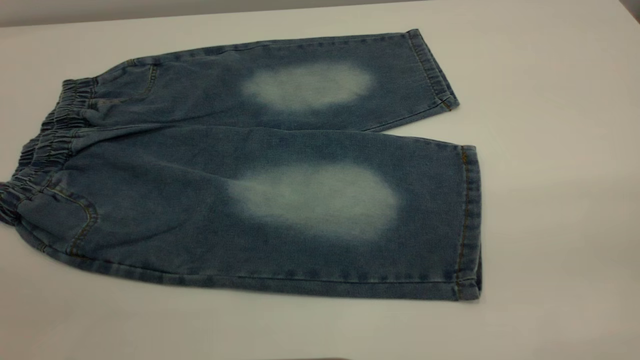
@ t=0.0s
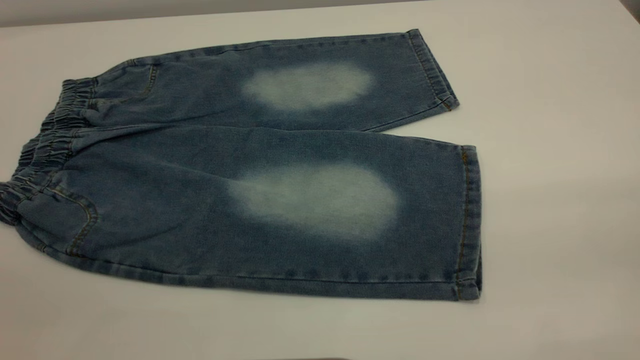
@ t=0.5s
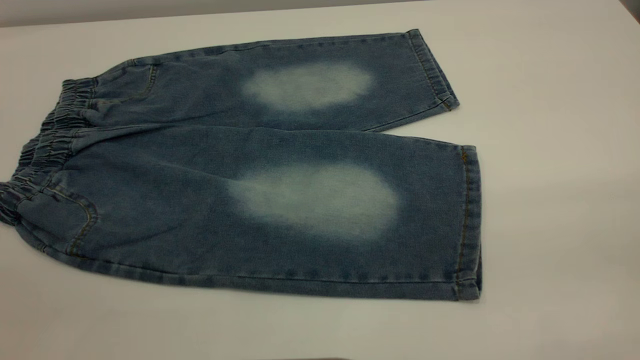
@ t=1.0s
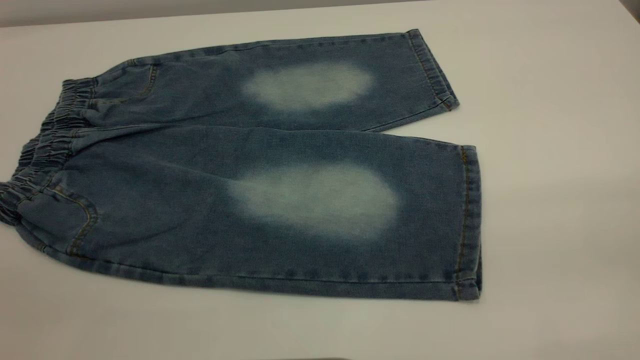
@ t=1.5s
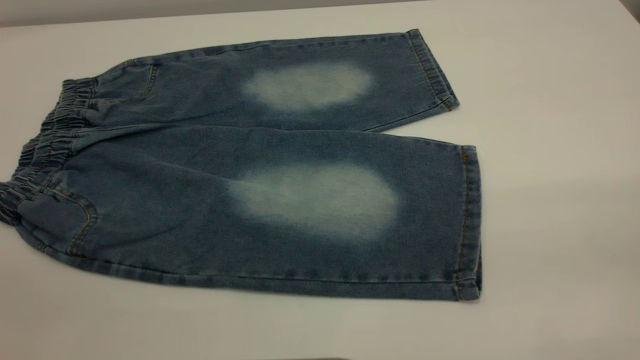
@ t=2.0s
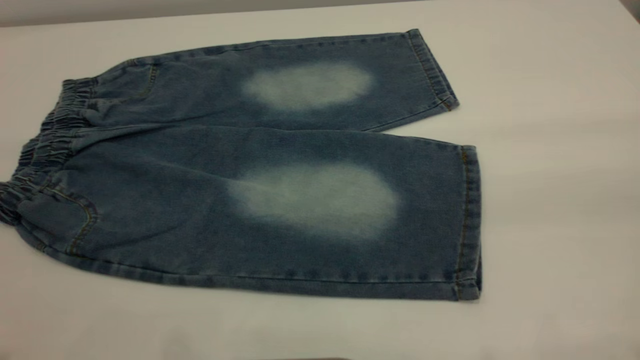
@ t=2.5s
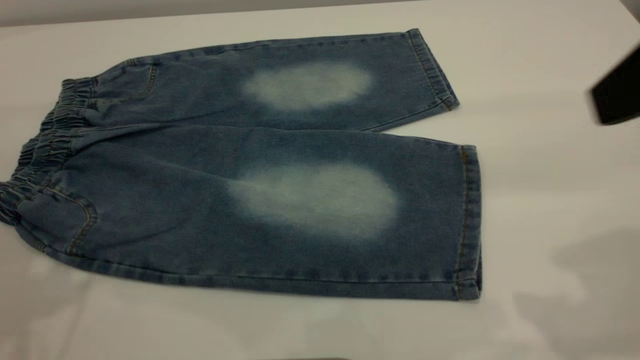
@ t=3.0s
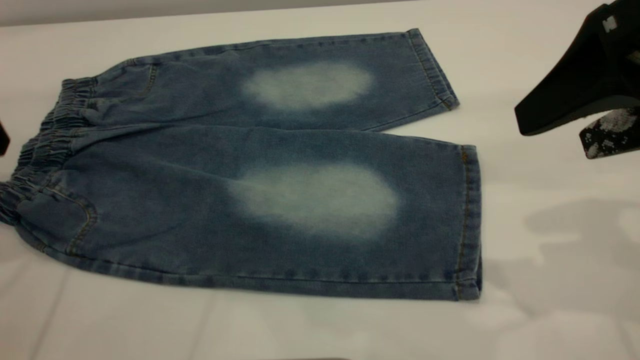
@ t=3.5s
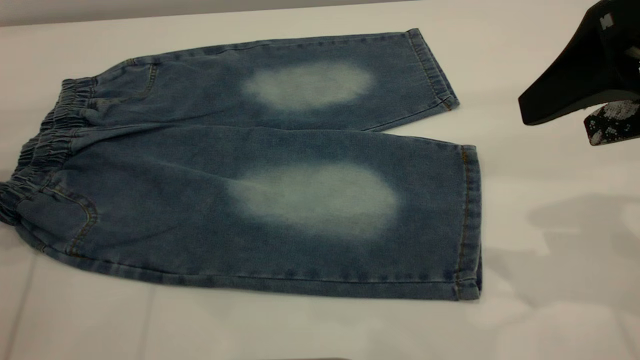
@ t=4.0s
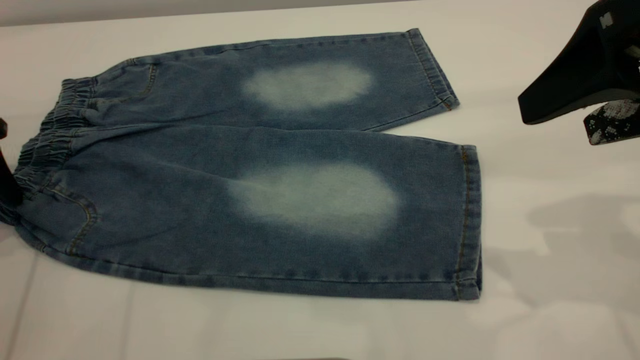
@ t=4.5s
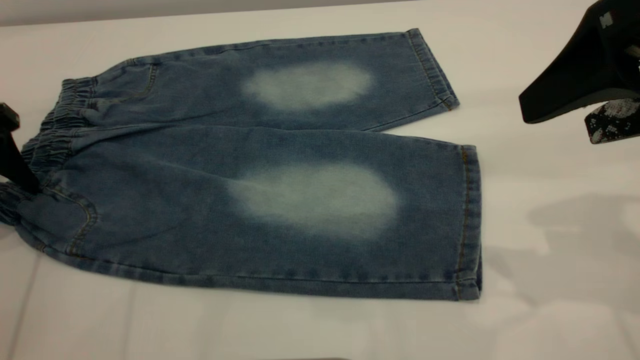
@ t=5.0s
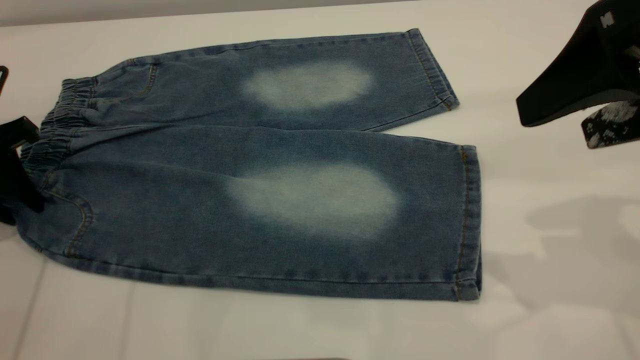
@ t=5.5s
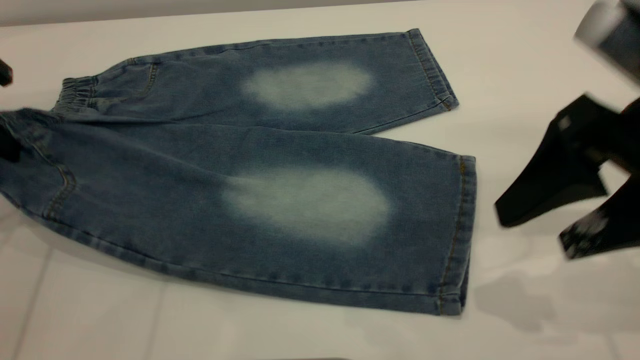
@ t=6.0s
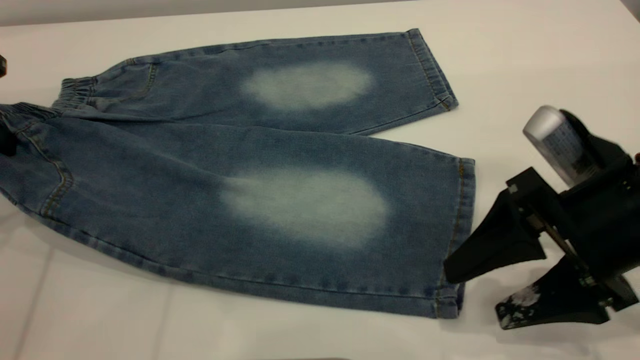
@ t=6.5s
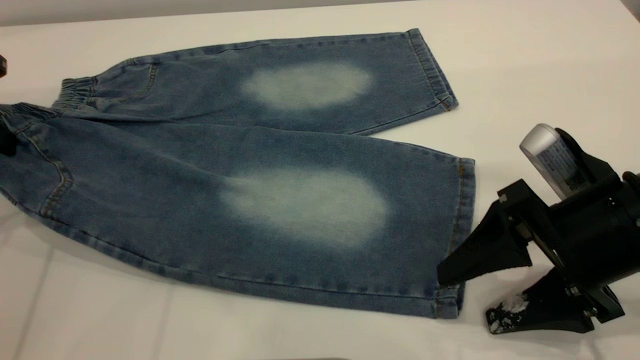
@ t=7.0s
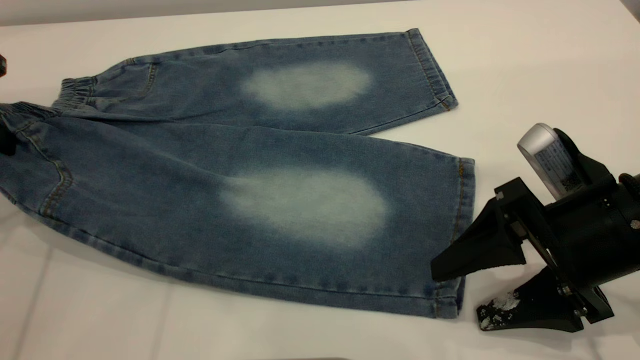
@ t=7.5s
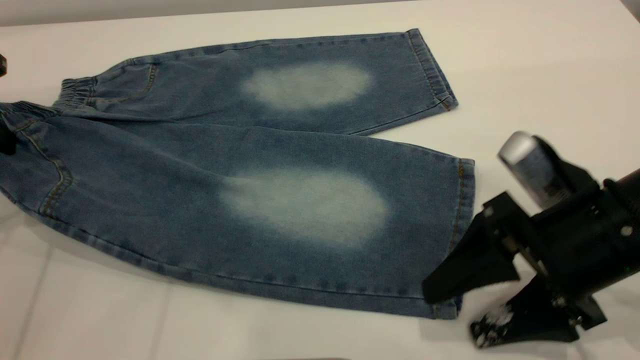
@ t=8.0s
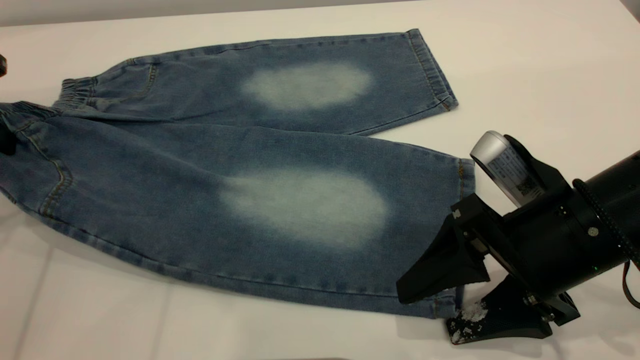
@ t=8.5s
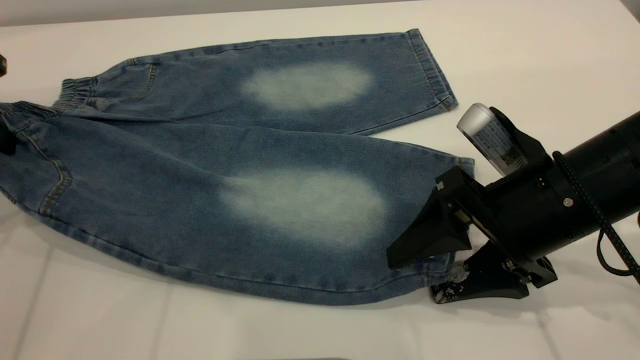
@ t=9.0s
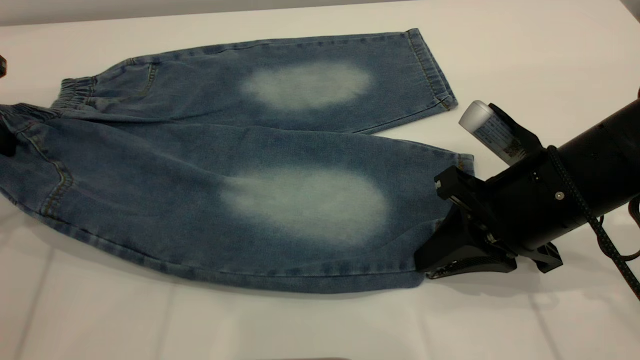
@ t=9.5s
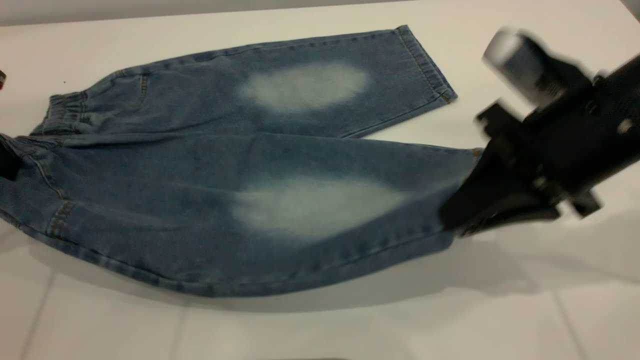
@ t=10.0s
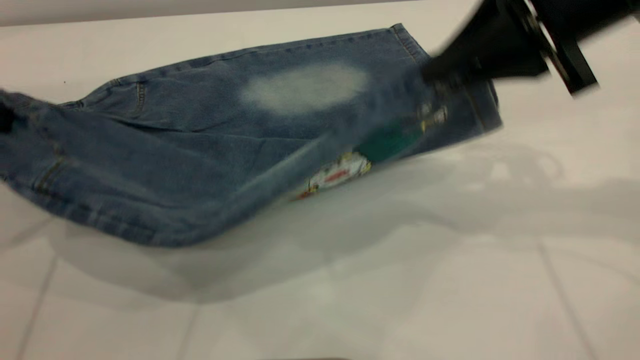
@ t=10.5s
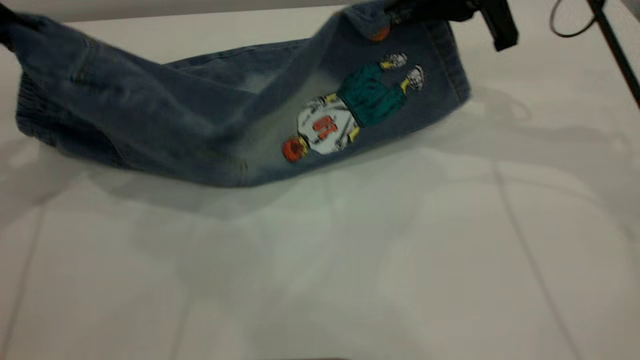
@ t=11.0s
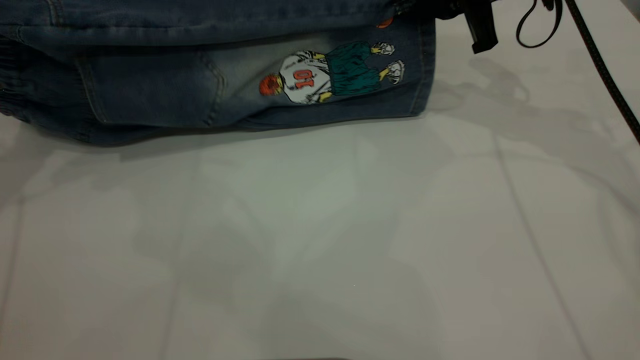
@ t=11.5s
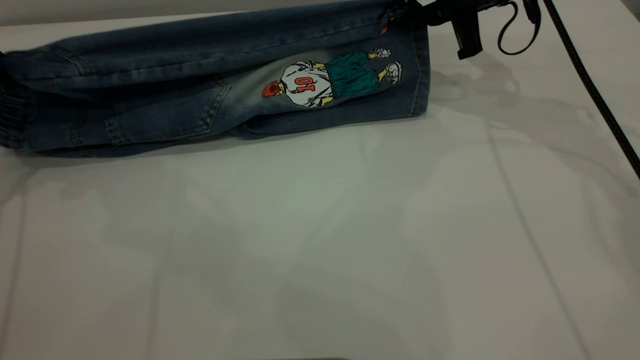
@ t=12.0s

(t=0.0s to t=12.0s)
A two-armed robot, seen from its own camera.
t=0.0s - t=2.0s: The two grippers keep their place.
t=2.0s - t=4.0s: The right gripper heads forward and downward, covering some 25 cm.
t=4.0s - t=6.0s: The right gripper is displaced downward by about 5 cm, while the left gripper closes up.
t=6.0s - t=8.0s: The right gripper moves downward, about 10 cm.
t=8.0s - t=10.0s: The right gripper is displaced upward by approximately 5 cm, and closes up.
t=10.0s - t=12.0s: The left gripper shifts by about 5 cm. The right gripper shifts roughly 20 cm forward.

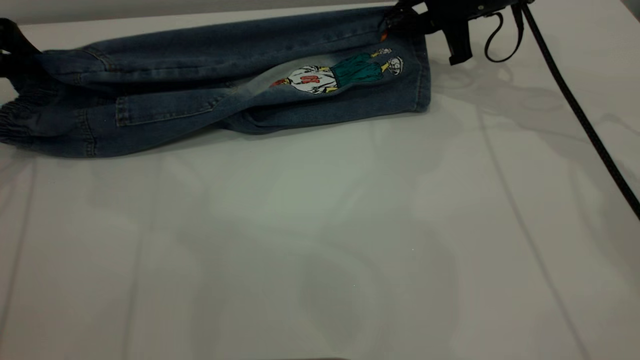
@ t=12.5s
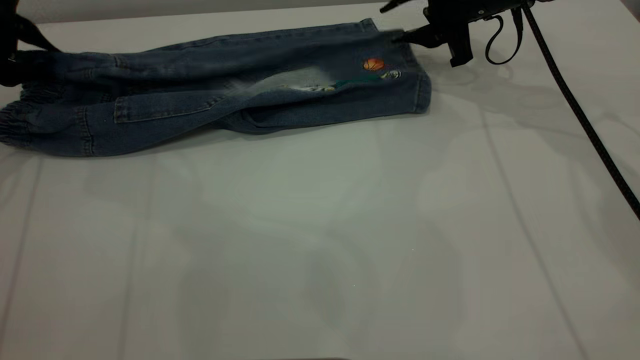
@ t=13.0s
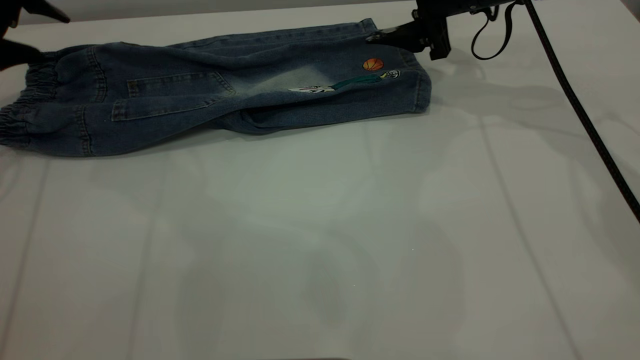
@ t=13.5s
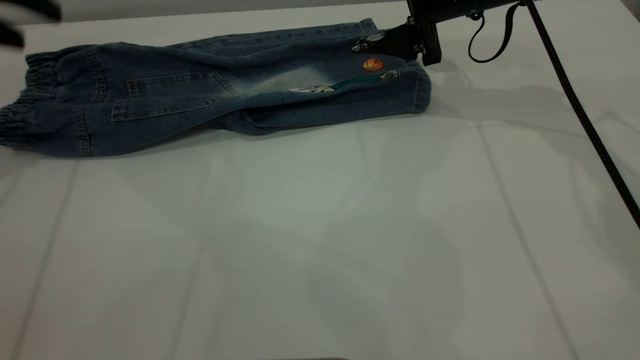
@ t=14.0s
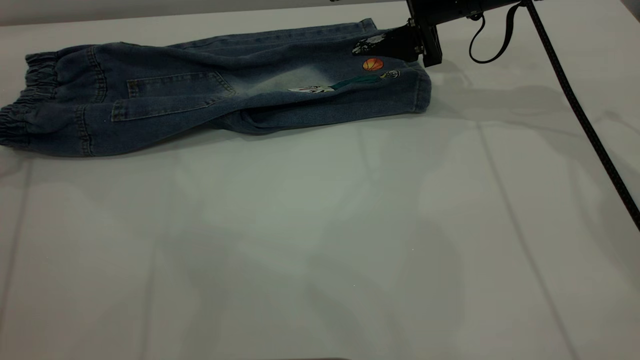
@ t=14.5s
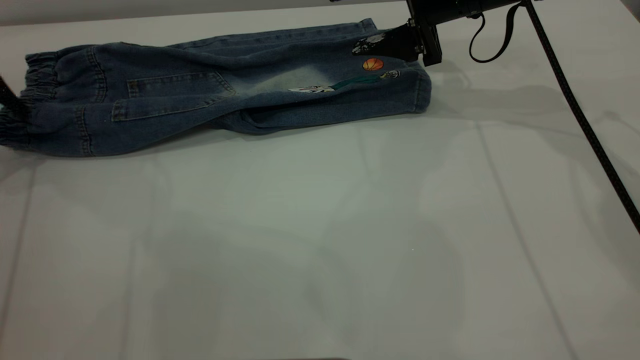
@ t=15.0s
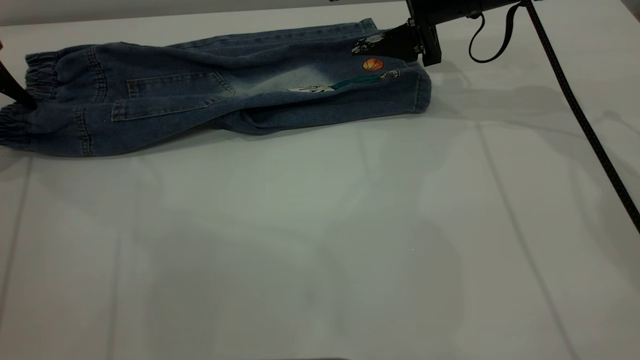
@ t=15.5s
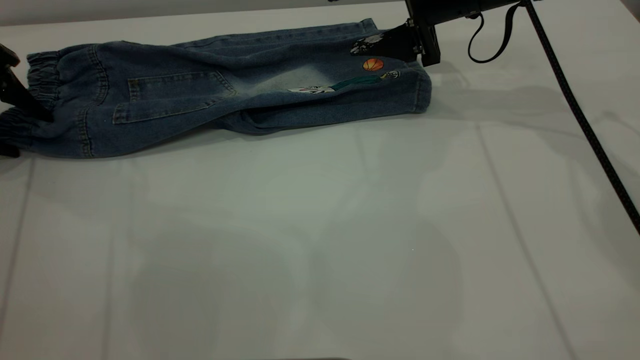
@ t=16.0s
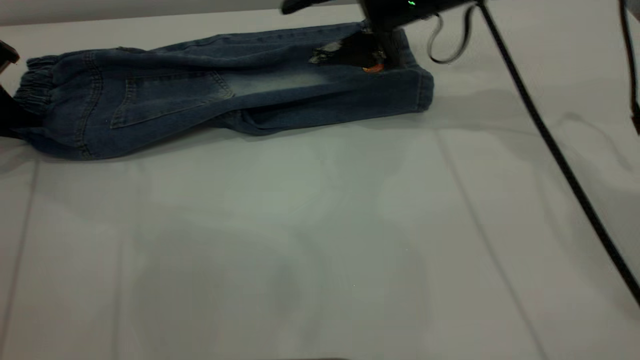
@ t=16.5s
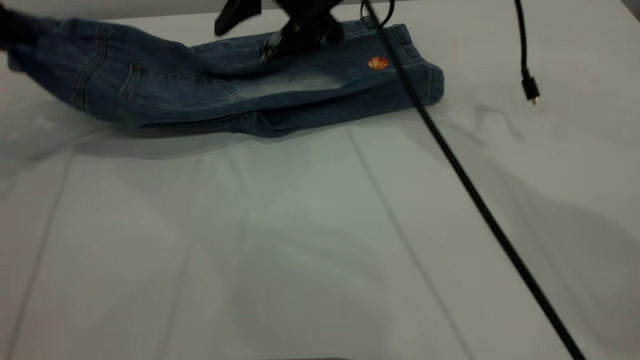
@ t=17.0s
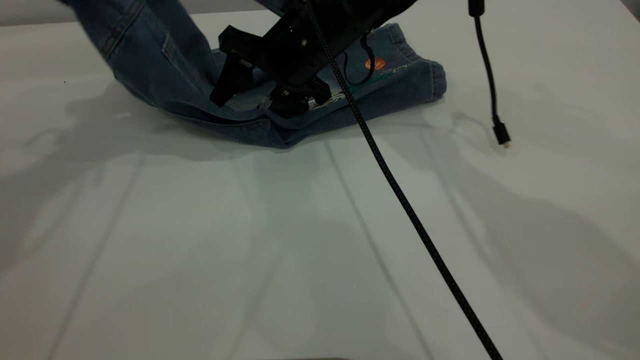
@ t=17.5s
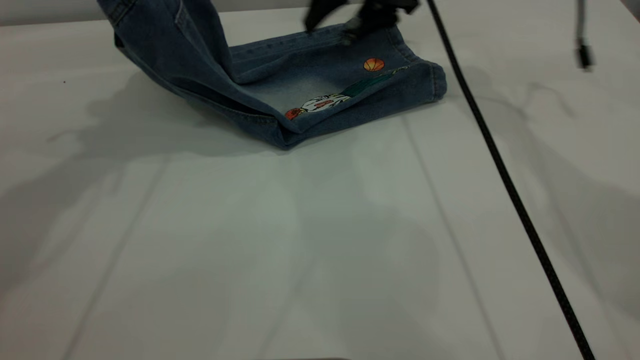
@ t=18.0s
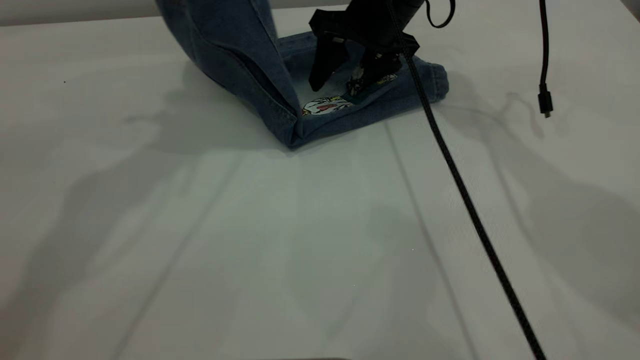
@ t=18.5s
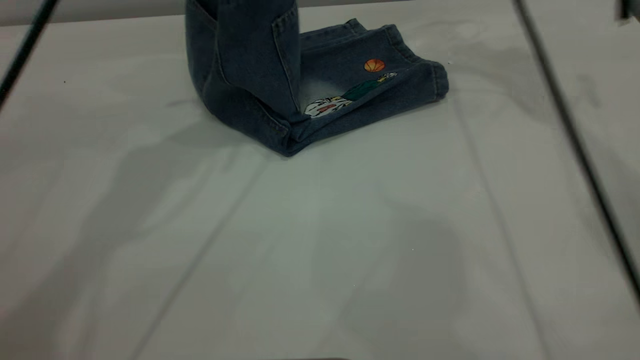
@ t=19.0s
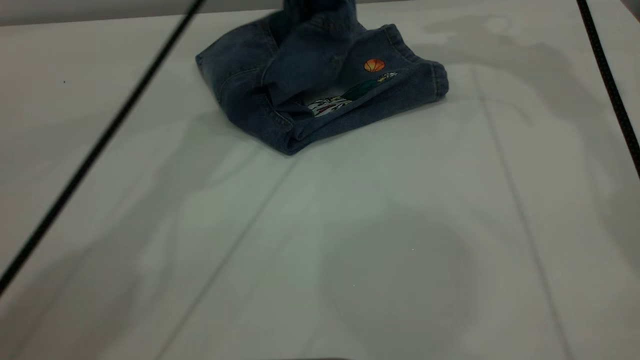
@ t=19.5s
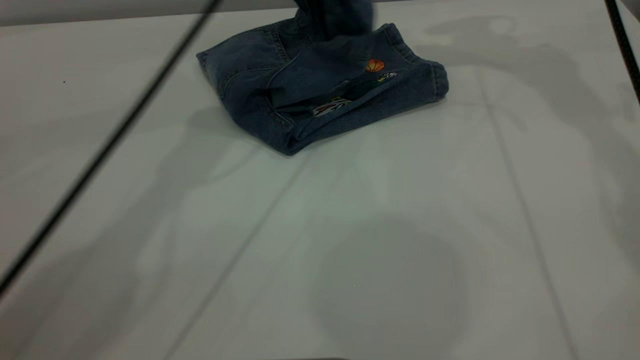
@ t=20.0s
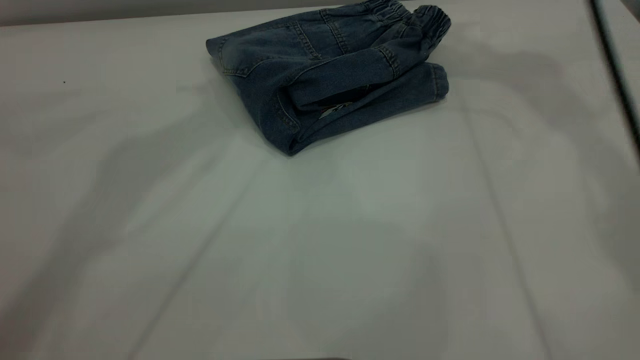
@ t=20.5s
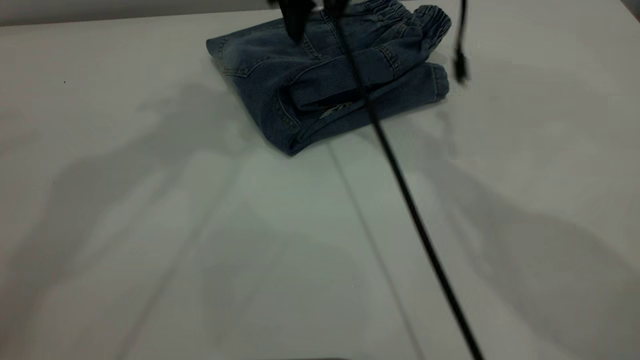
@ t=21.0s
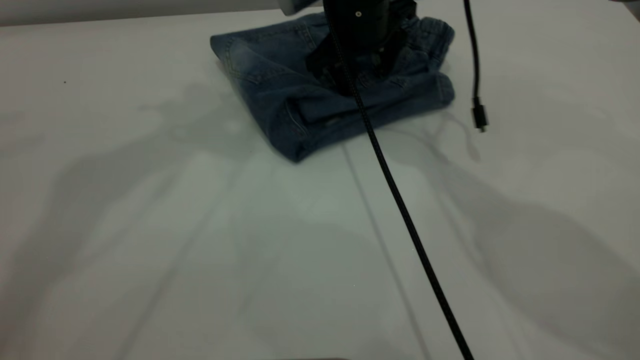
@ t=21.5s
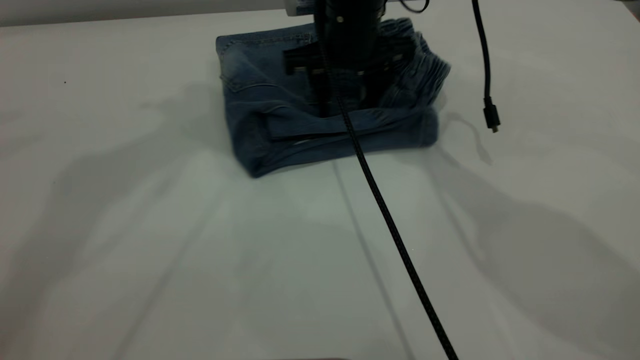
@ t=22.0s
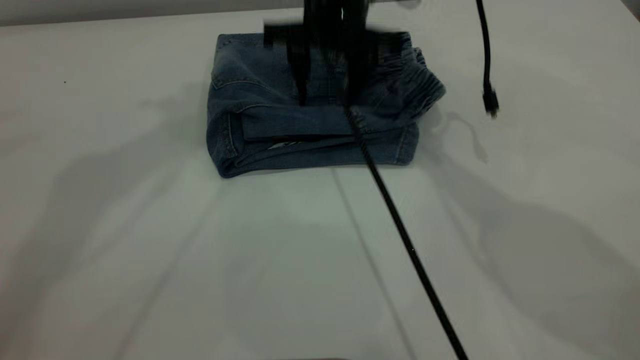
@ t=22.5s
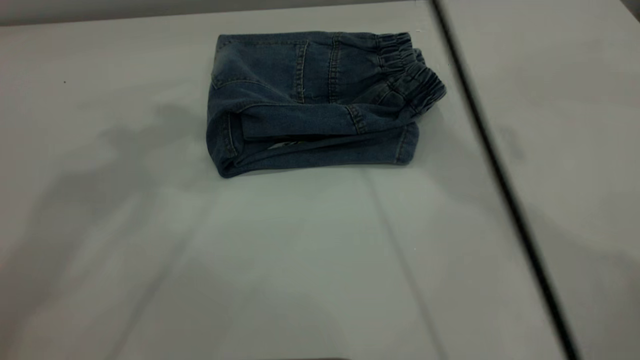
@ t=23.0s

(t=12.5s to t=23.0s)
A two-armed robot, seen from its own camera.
Step, t=14.0s - t=20.0s: Fold the pants from left to right.
t=12.5s - t=14.5s: The left gripper shifts some 5 cm upward, and opens up. Meanwhile the right gripper opens.
t=14.5s - t=16.5s: The left gripper is displaced downward by approximately 10 cm, and closes; the right gripper shifts some 5 cm to the left.
t=16.5s - t=19.0s: The right gripper is displaced to the right, upward and forward by approximately 15 cm. Meanwhile the left gripper moves to the right and upward, roughly 35 cm.
t=19.0s - t=21.0s: The right gripper goes about 15 cm to the left. The left gripper travels upward by some 15 cm, and opens its fingers.
t=21.0s - t=23.0s: The right gripper heads upward, covering roughly 20 cm.
